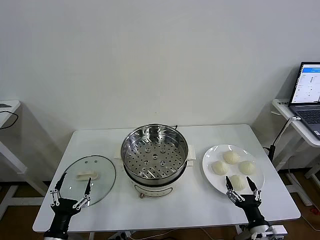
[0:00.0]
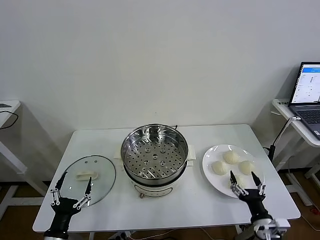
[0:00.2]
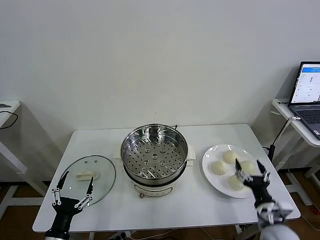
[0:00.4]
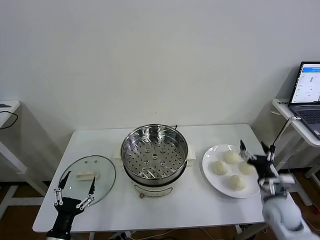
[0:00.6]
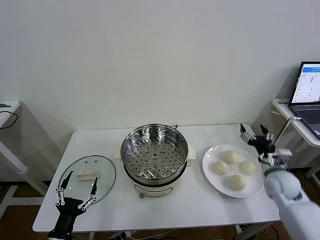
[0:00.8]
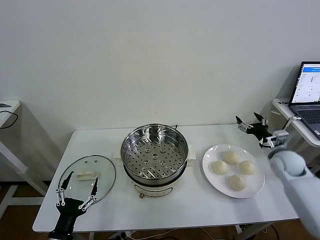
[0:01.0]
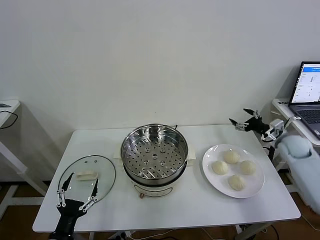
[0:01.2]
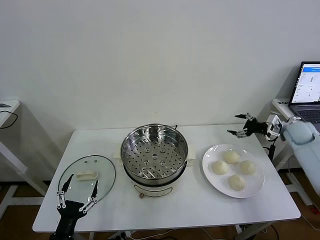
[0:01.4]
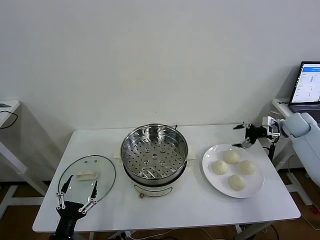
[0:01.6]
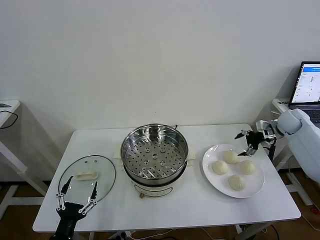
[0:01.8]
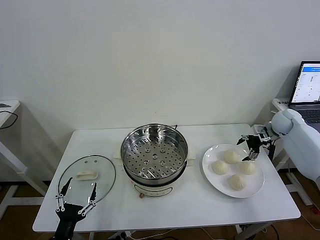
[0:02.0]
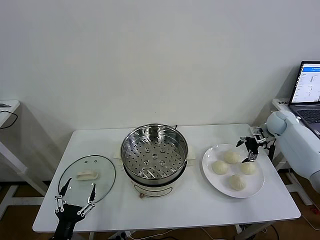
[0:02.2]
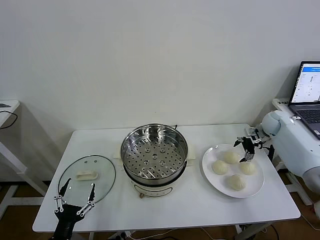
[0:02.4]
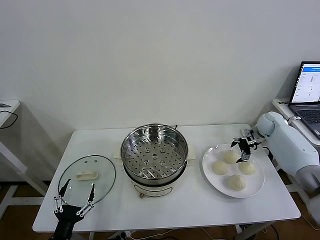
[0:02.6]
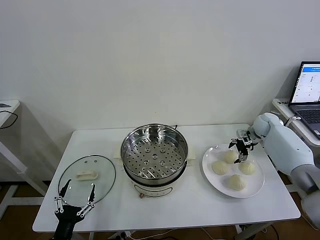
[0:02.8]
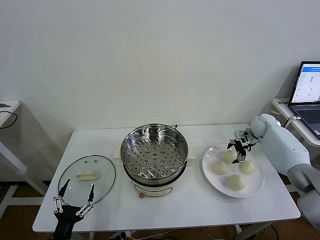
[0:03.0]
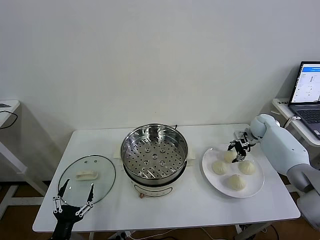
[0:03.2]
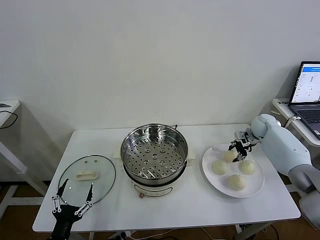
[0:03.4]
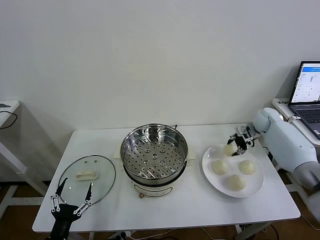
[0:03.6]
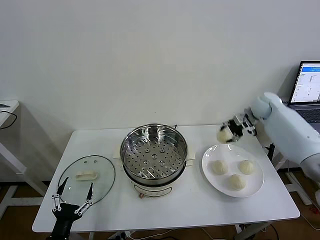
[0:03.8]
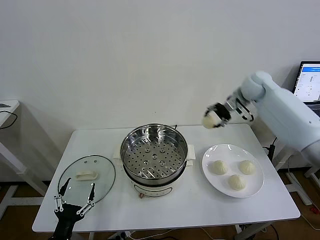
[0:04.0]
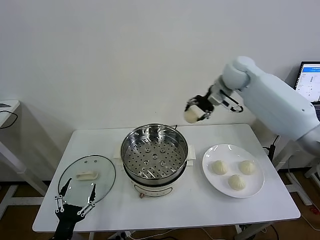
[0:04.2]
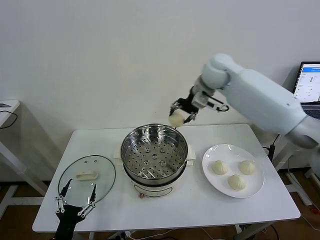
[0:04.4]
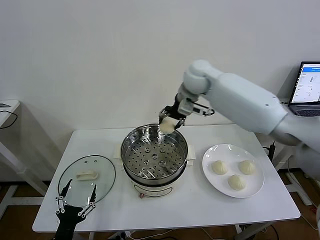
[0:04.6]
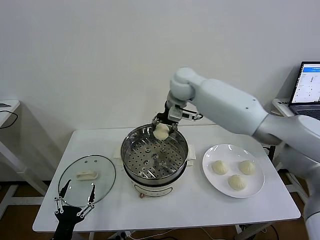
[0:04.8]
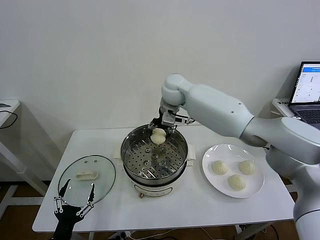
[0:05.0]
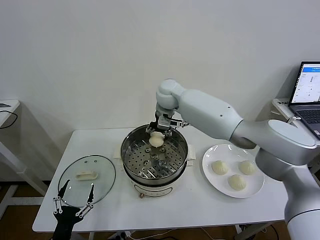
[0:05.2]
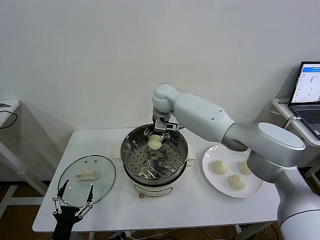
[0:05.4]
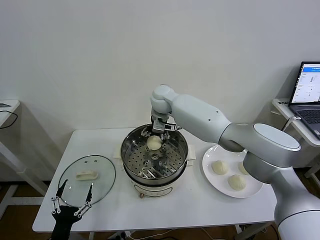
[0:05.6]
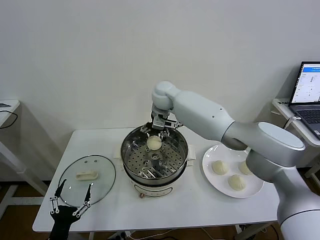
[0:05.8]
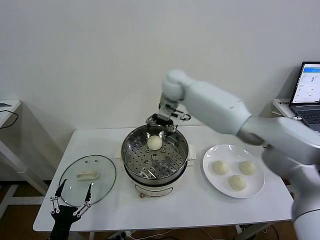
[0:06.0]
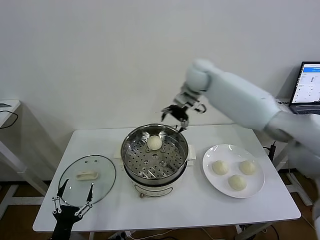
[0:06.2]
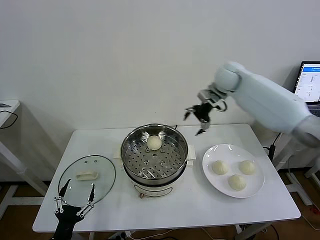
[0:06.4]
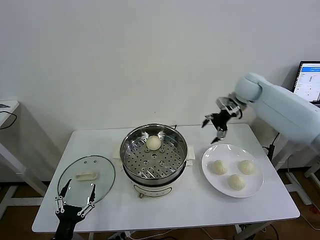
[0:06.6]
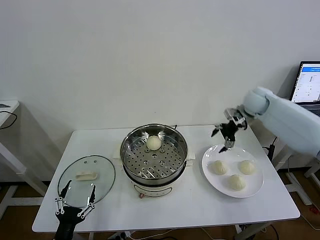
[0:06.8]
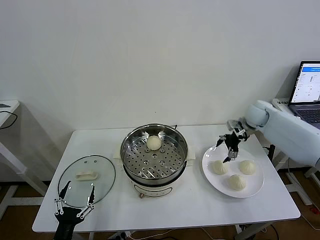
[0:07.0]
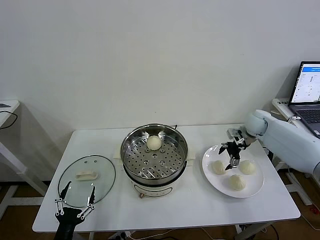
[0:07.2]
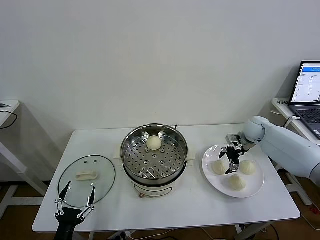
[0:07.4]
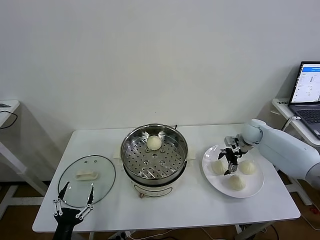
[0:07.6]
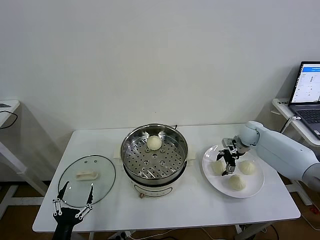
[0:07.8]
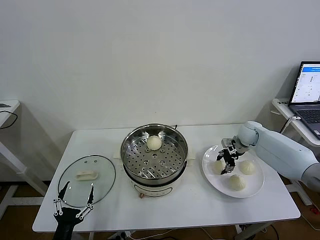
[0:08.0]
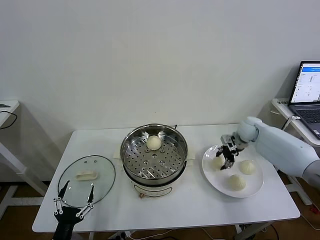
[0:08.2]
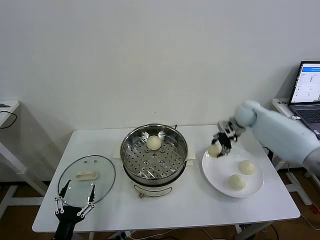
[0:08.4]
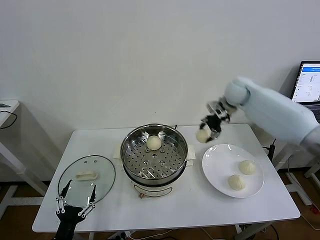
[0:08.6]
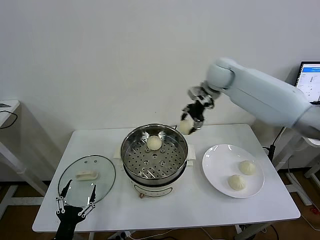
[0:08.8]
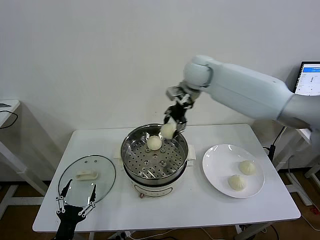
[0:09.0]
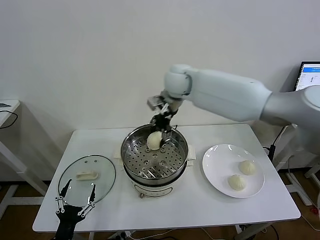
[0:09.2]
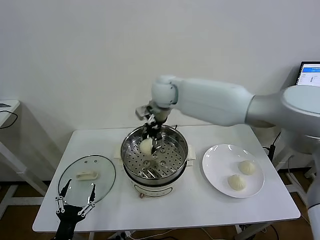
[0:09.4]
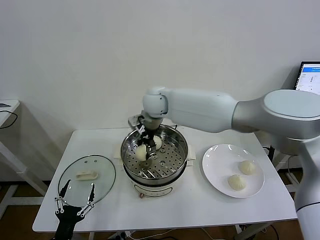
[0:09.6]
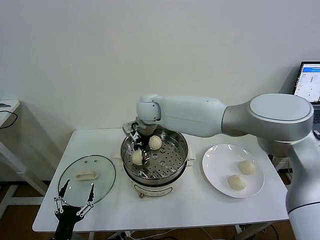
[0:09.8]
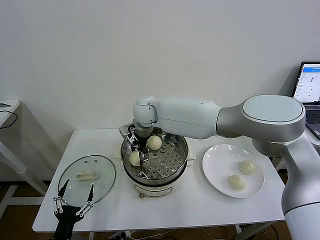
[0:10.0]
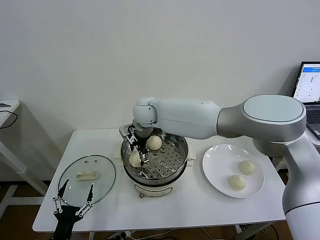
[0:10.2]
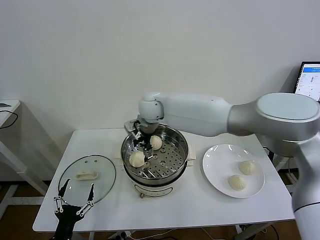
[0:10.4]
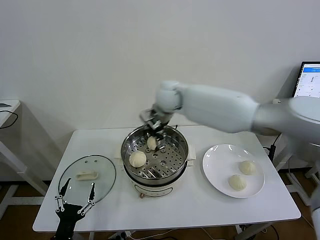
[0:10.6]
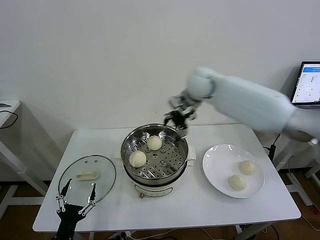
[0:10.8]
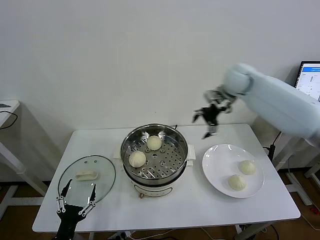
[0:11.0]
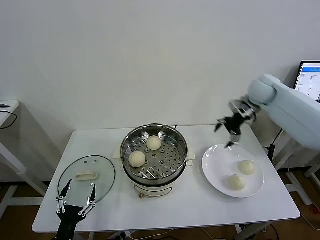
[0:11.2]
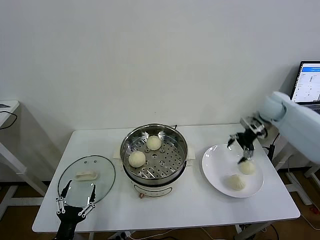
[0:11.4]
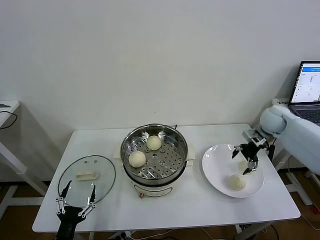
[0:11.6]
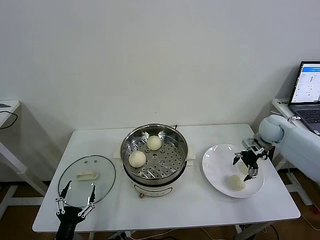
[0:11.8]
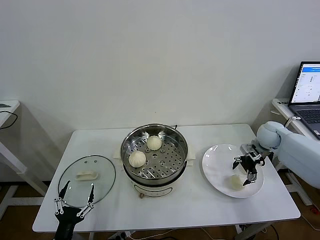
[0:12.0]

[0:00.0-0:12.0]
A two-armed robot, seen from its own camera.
Task of the whole recording: take steamed baozi put them in steamer then cover it.
Step, 0.0 to 3.2 s: Grasp the baozi in the plate with right gripper.
Step, 3.4 to 5.6 s: Place the baozi on the steamer with right gripper.
Step, 5.8 to 8.0 s: Grasp the baozi in the plate with right gripper.
Step, 8.2 to 10.2 s: Place the baozi on the steamer with right gripper.
1.6 to 3.0 s: The right gripper heads to the left, downward and forward, covering roughly 10 cm.
3.0 to 4.4 s: The right gripper moves to the left and upward, approximately 40 cm.
4.4 to 6.0 s: The right gripper goes approximately 5 cm to the left, and opens.
6.0 to 7.6 s: The right gripper heads to the right and downward, covering some 35 cm.
7.6 to 9.0 s: The right gripper travels to the left and upward by roughly 35 cm, and closes up.
9.0 to 10.4 s: The right gripper goes roughly 15 cm to the left and downward, and opens.
10.4 to 12.0 s: The right gripper moves to the right, some 40 cm.

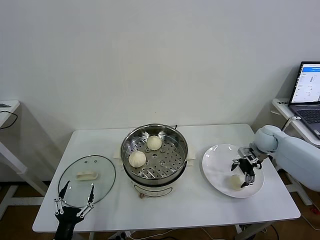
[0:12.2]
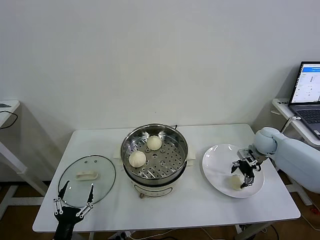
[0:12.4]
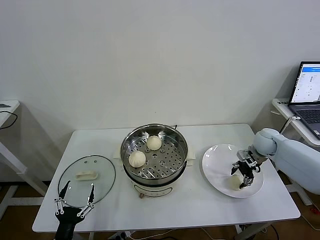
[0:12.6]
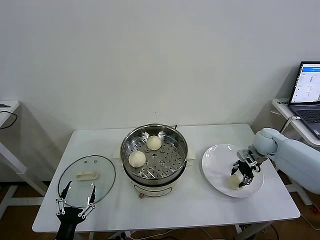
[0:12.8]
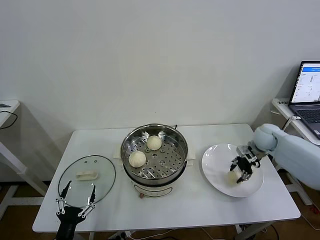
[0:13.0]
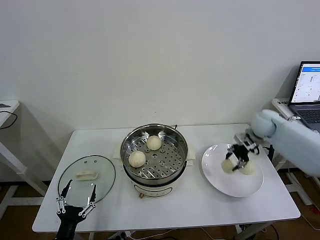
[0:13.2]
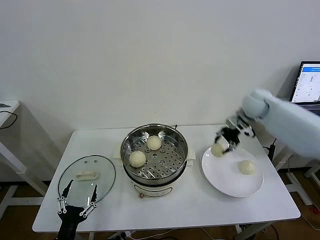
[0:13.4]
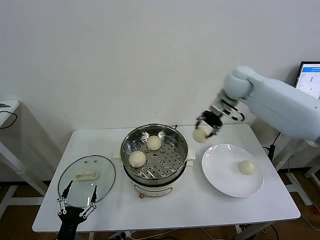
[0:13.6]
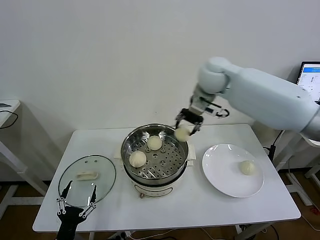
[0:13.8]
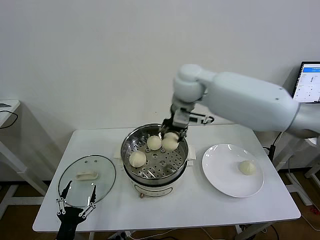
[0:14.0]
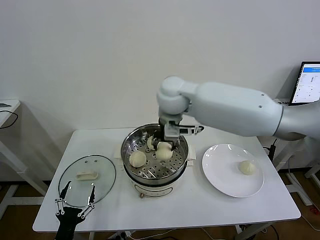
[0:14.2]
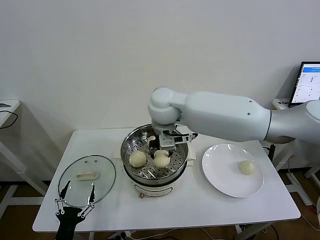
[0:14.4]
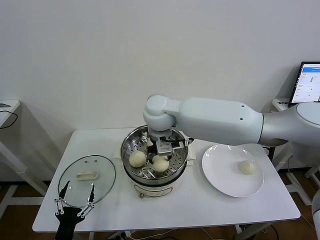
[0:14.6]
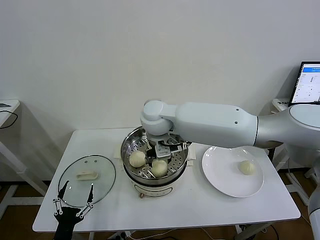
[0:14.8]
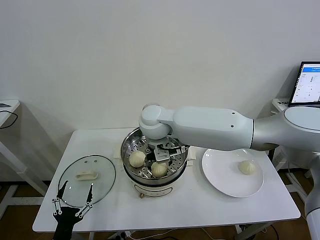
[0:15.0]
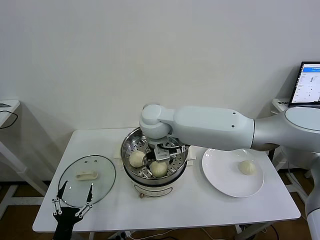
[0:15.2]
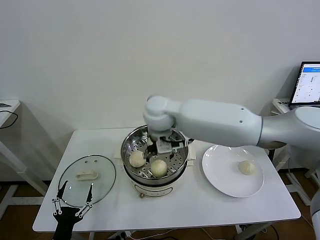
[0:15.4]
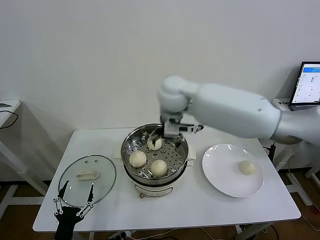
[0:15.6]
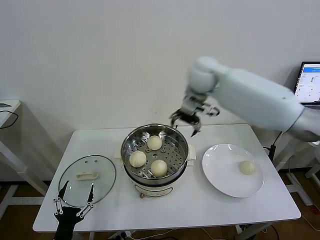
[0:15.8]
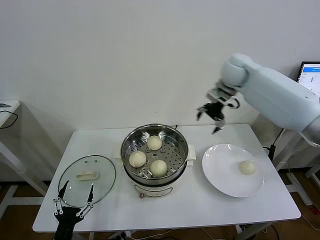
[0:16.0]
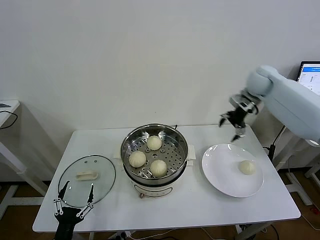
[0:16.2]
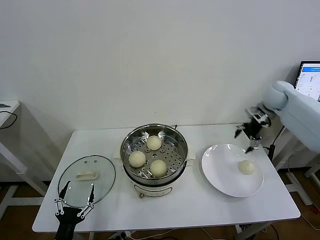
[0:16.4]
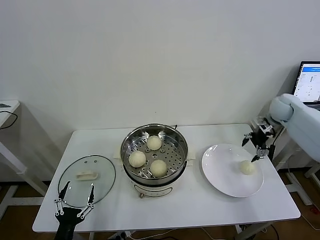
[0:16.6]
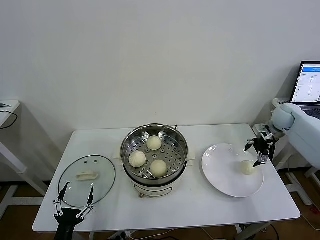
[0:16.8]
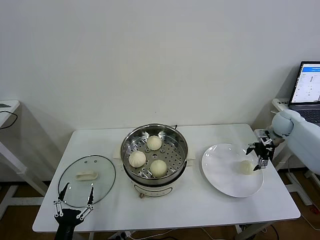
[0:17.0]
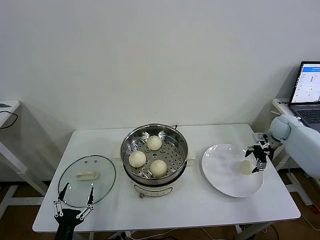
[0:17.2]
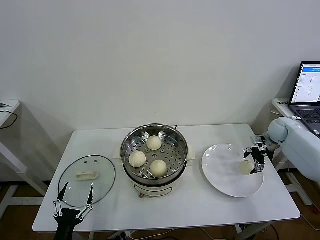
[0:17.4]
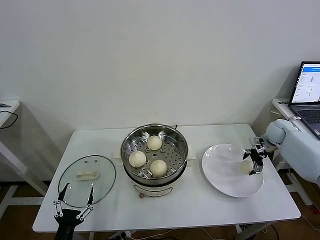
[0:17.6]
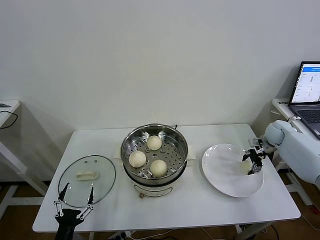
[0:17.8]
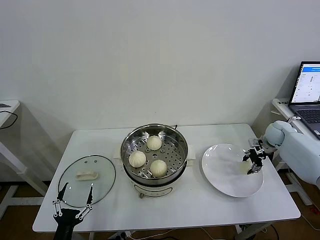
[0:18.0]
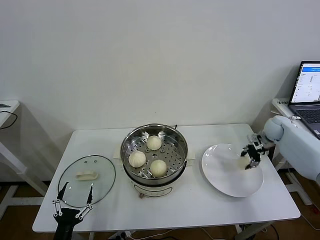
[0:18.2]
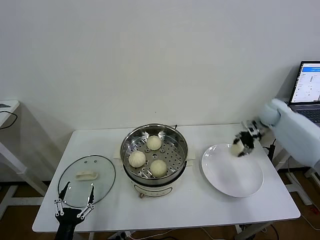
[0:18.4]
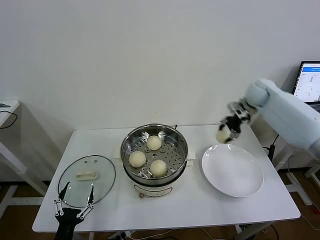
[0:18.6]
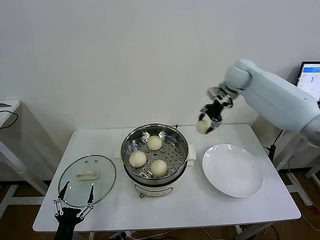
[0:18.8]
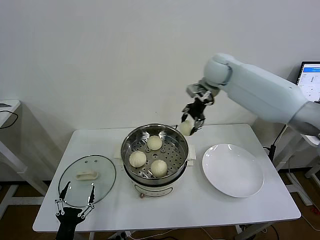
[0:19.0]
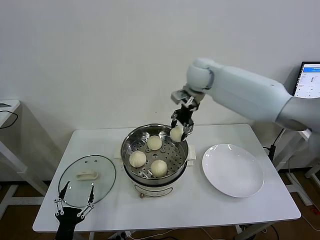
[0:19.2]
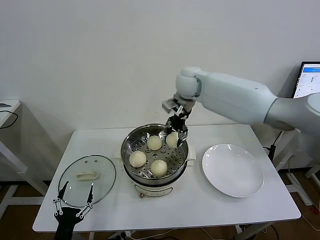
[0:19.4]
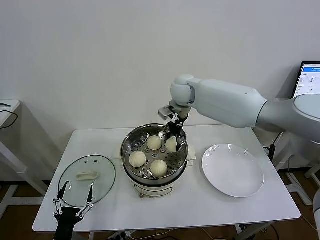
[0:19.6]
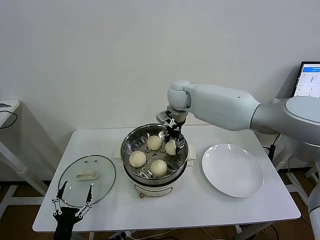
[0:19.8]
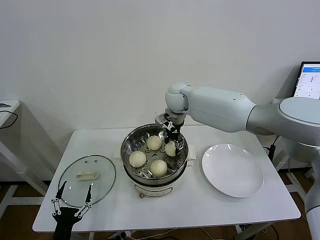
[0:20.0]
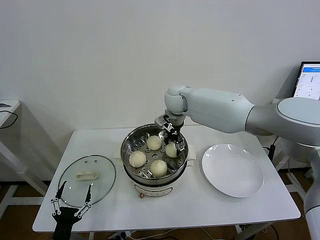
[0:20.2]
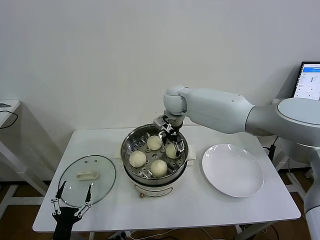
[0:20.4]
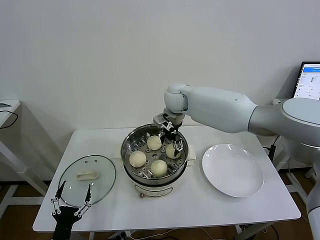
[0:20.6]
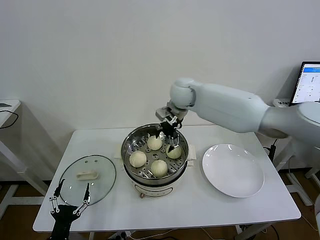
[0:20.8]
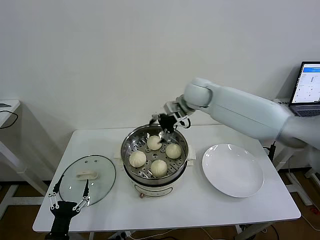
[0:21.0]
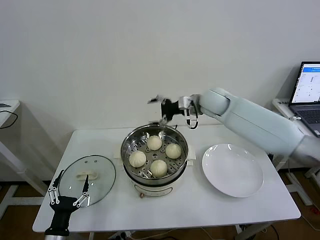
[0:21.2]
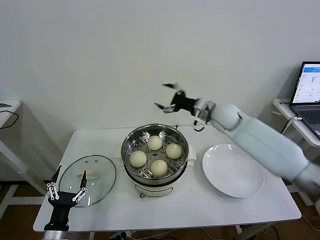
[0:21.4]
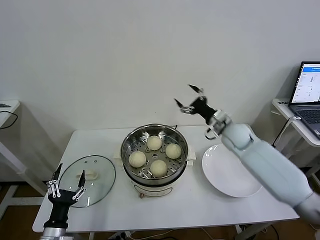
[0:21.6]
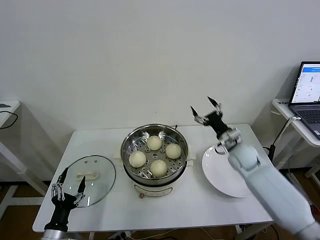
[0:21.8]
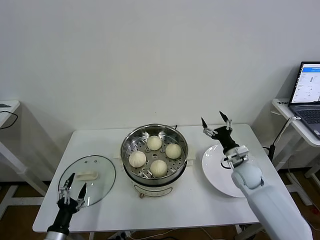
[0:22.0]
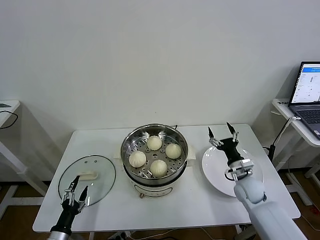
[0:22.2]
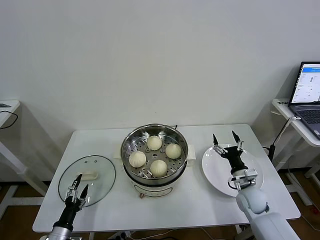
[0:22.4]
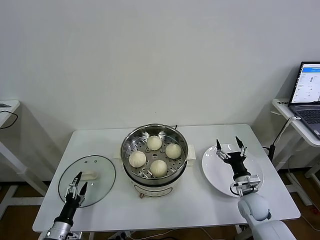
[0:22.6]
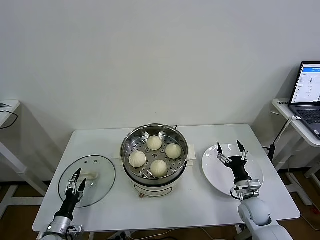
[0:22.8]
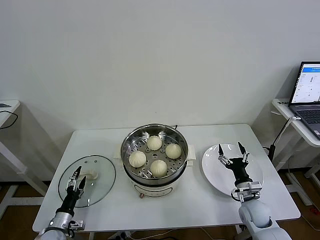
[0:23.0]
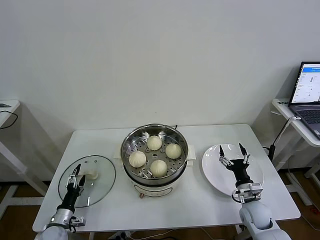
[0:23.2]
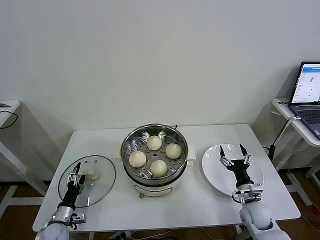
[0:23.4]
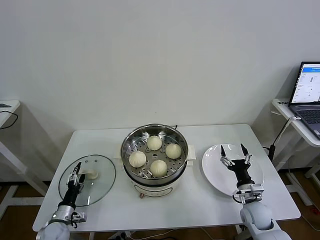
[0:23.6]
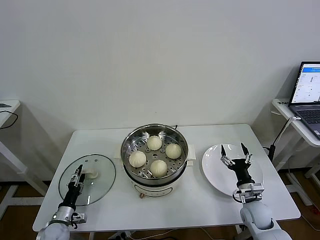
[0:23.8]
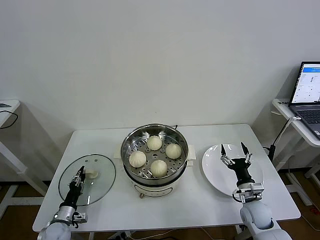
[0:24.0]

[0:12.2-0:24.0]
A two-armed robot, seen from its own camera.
Task of the whole recording: take steamed baozi put them in steamer then cover it.
Step, 13.0 to 14.8 s: Place the baozi on the steamer with right gripper.
Step, 15.0 to 17.8 s: Grasp the baozi in the plate with right gripper.
Step, 18.2 to 20.2 s: Place the baozi on the steamer with right gripper.
12.2 to 13.6 s: The right gripper moves upward and to the left, some 30 cm, and closes.
13.6 to 15.2 s: The right gripper travels to the left and backward by approximately 25 cm, and opens its fingers.
15.2 to 16.6 s: The right gripper goes about 50 cm to the right.
16.6 to 18.2 s: The right gripper travels downward by roughly 10 cm, and closes its fingers.
18.2 to 19.6 s: The right gripper shifts some 40 cm to the left and upward.
19.6 to 21.0 s: The right gripper opens up.
21.0 to 22.6 s: The left gripper is displaced forward and downward by approximately 10 cm. The right gripper goes about 50 cm downward, backward and to the right.
22.6 to 24.0 s: The left gripper goes approximately 5 cm forward, and closes.
